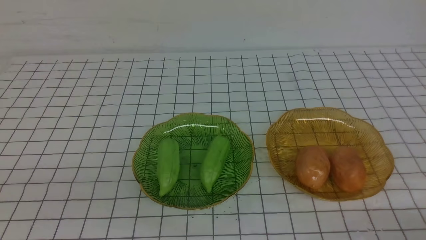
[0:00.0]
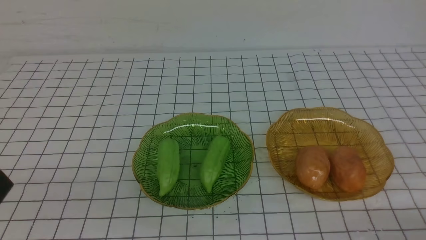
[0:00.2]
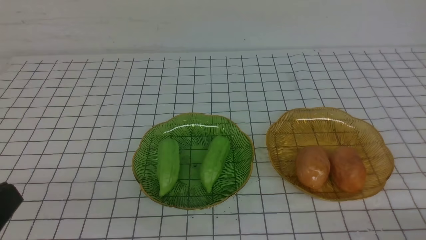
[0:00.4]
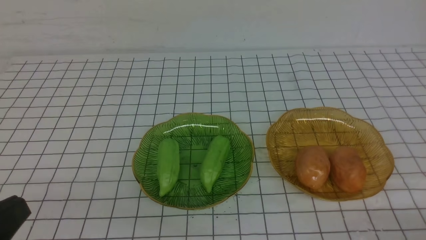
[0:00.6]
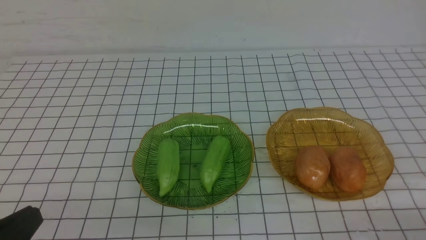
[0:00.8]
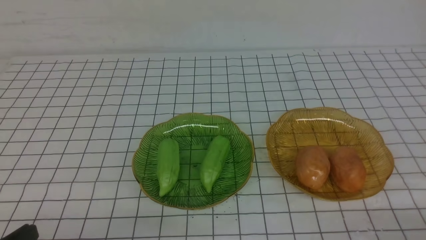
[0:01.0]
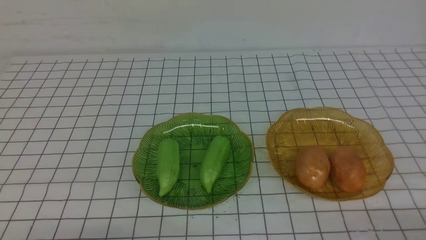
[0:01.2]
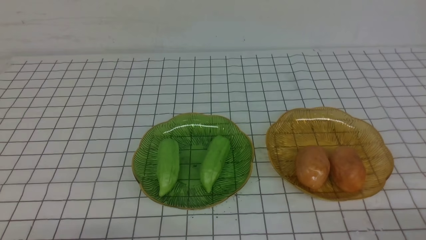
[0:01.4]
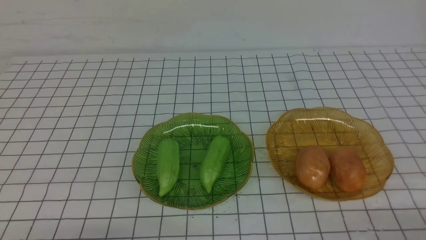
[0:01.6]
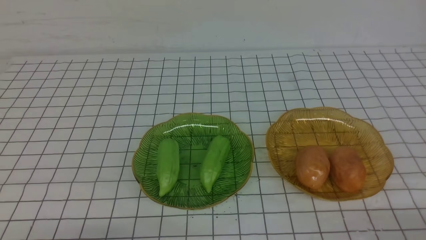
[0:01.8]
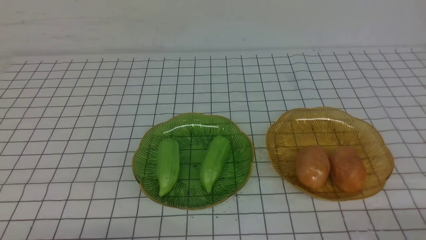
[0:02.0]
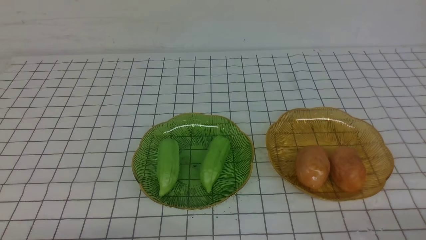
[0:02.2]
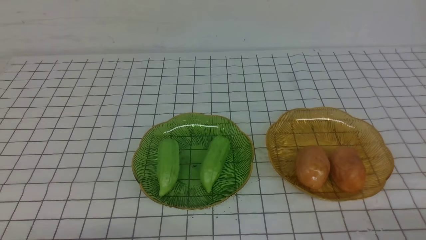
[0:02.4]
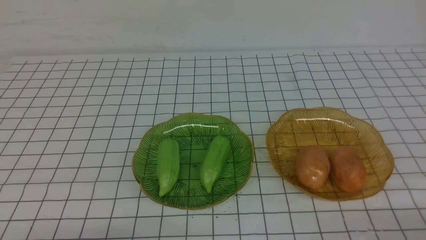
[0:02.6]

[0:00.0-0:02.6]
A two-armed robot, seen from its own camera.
0:01.2 to 0:02.6: Both grippers stay put.
